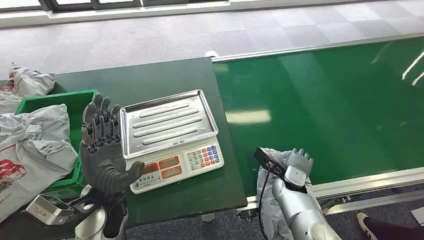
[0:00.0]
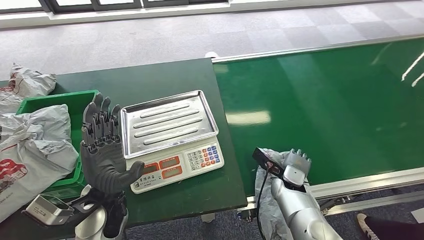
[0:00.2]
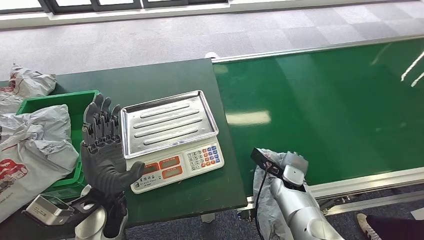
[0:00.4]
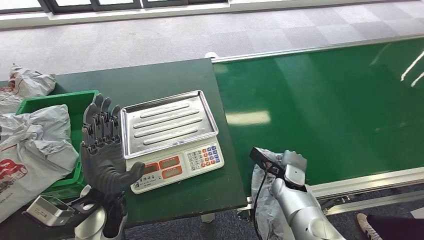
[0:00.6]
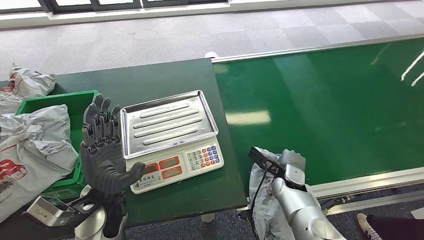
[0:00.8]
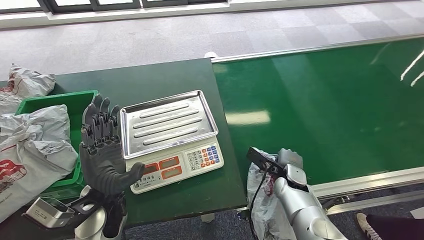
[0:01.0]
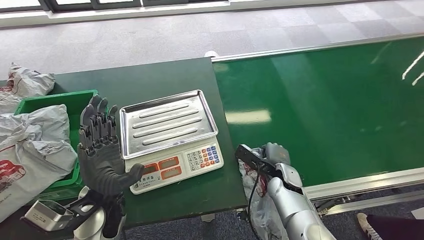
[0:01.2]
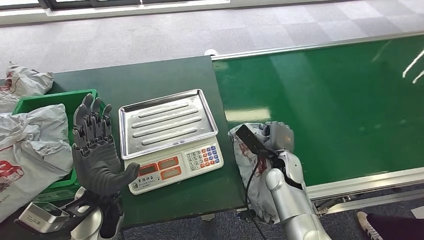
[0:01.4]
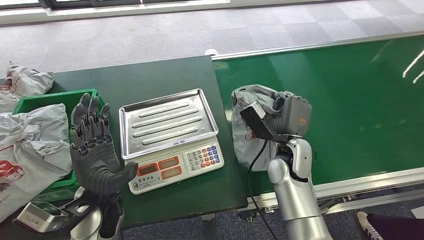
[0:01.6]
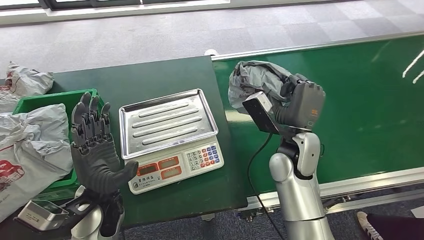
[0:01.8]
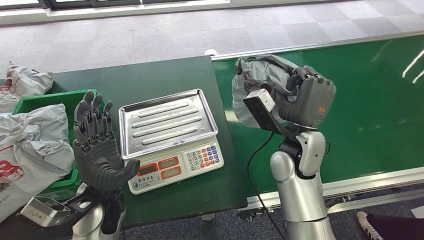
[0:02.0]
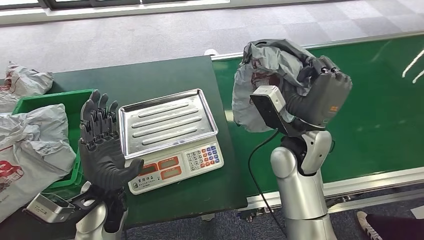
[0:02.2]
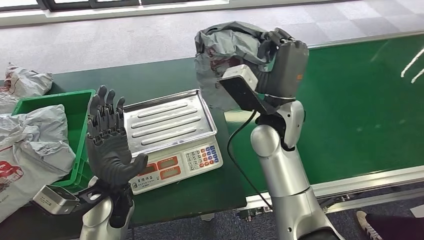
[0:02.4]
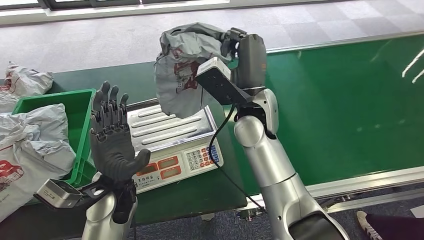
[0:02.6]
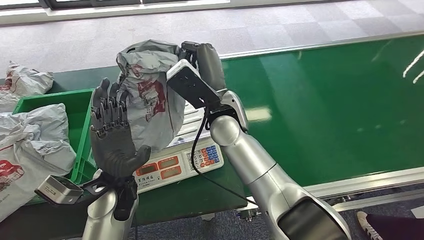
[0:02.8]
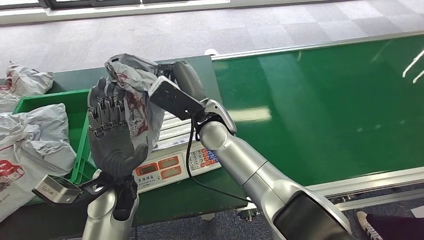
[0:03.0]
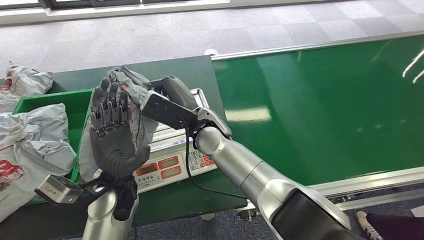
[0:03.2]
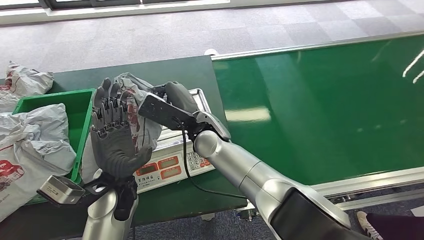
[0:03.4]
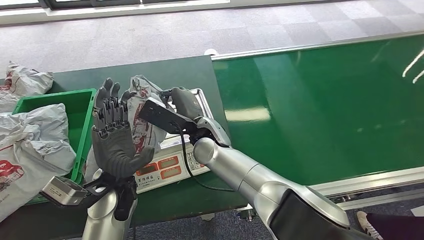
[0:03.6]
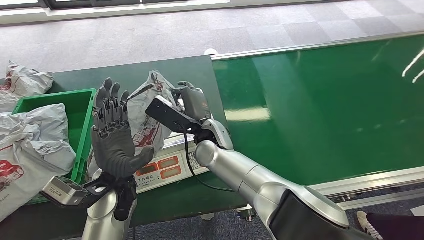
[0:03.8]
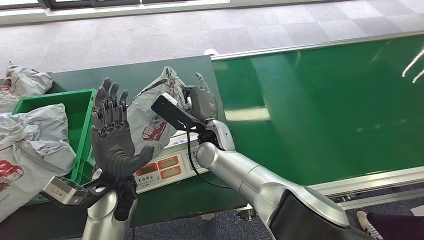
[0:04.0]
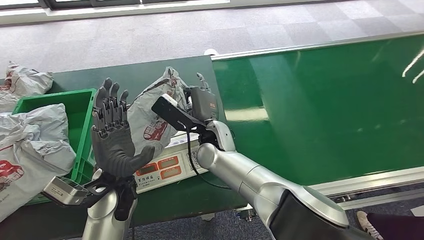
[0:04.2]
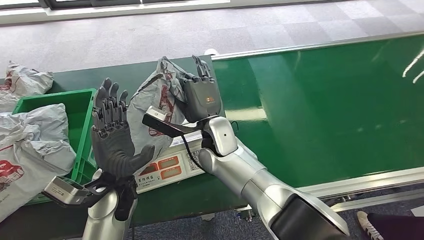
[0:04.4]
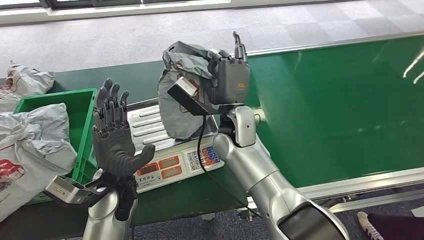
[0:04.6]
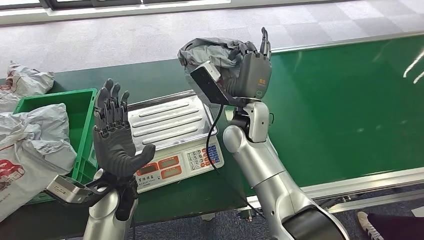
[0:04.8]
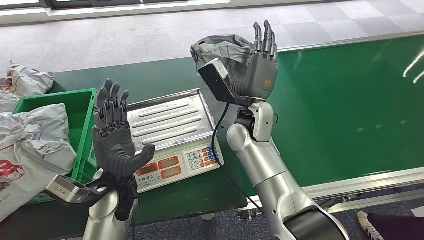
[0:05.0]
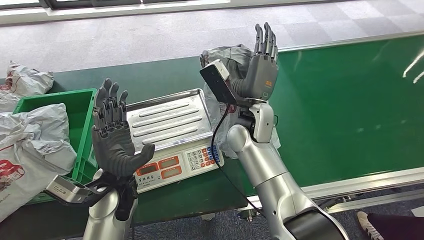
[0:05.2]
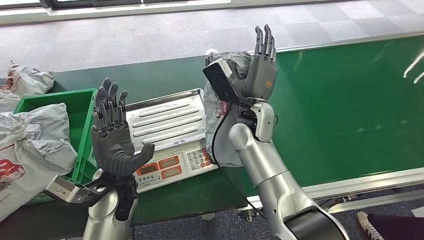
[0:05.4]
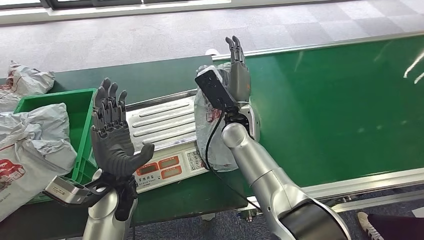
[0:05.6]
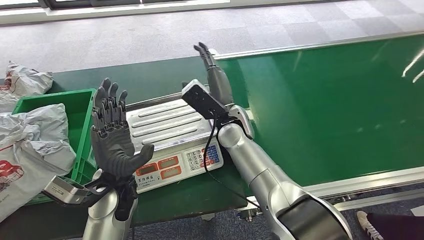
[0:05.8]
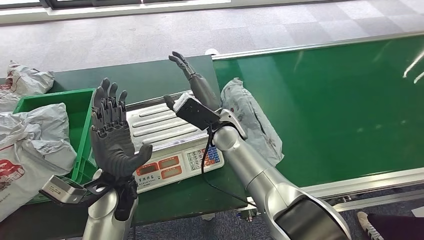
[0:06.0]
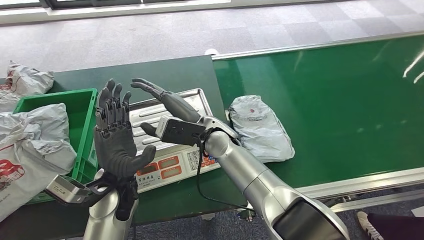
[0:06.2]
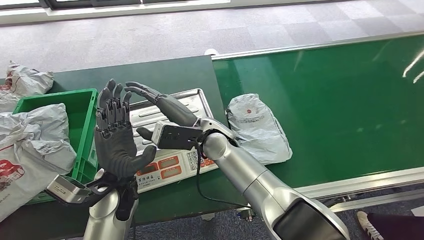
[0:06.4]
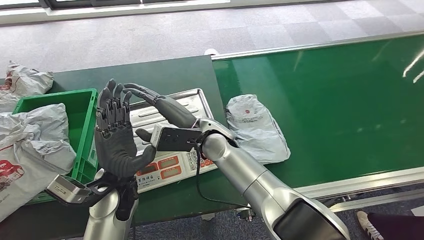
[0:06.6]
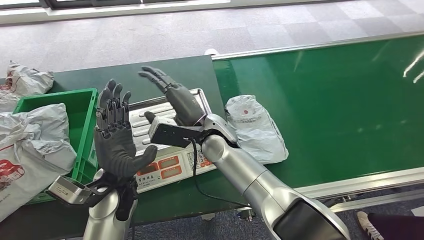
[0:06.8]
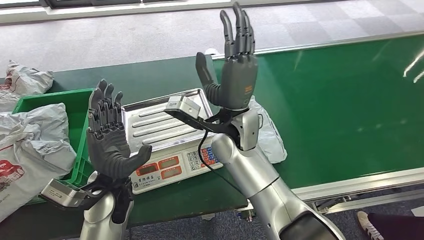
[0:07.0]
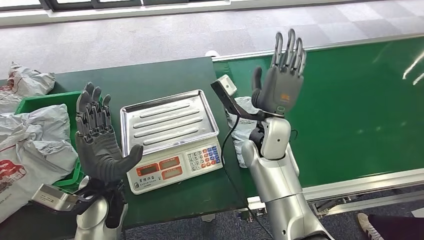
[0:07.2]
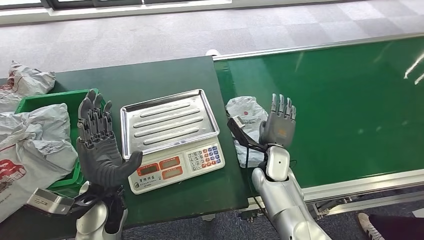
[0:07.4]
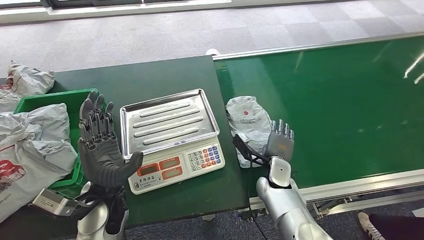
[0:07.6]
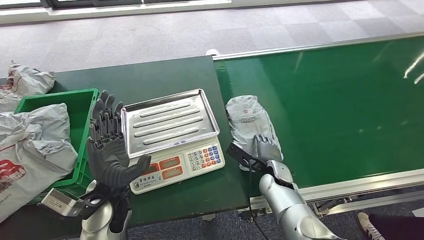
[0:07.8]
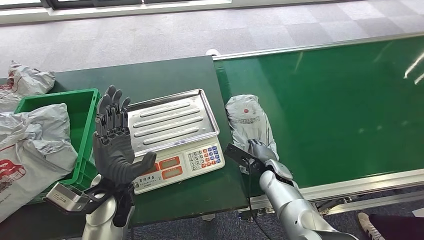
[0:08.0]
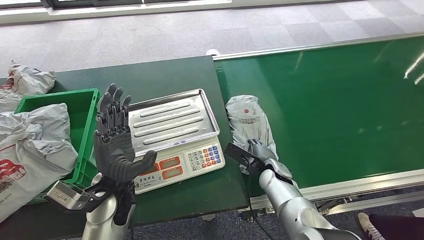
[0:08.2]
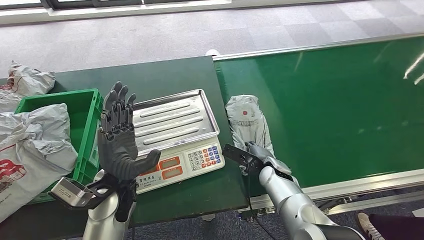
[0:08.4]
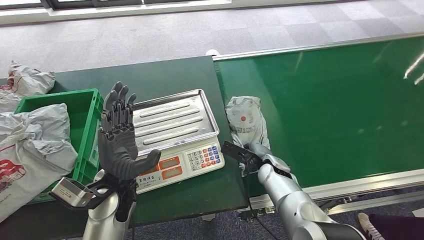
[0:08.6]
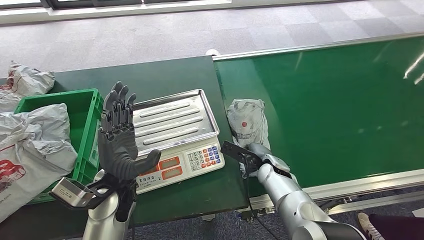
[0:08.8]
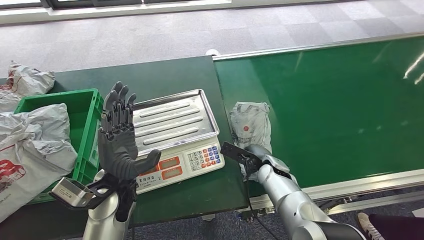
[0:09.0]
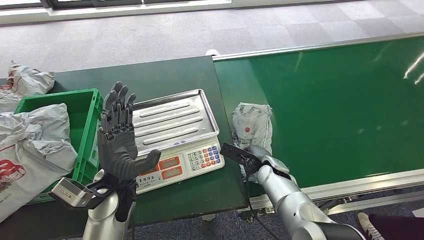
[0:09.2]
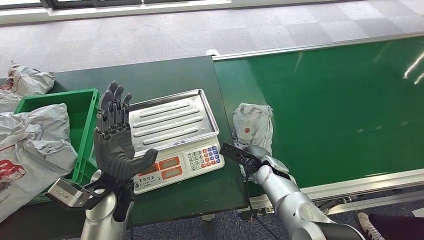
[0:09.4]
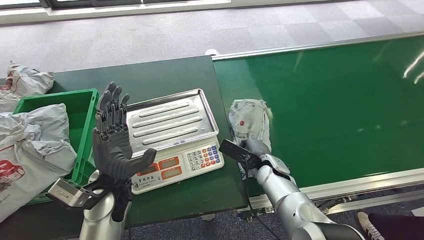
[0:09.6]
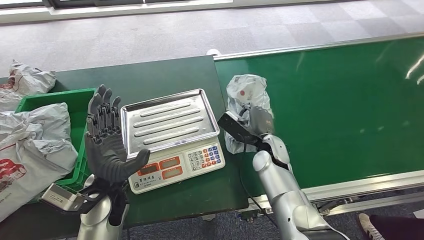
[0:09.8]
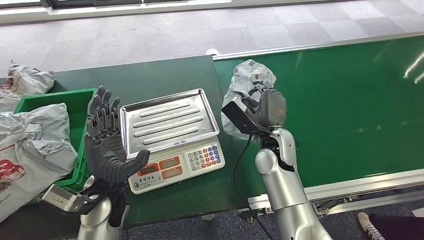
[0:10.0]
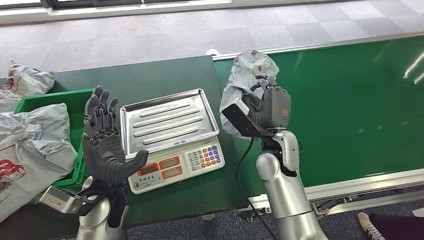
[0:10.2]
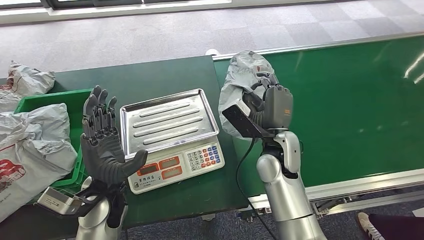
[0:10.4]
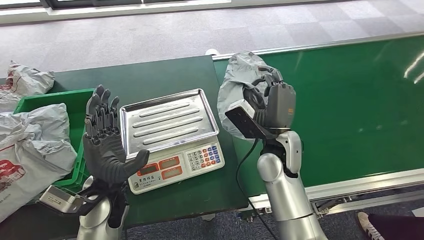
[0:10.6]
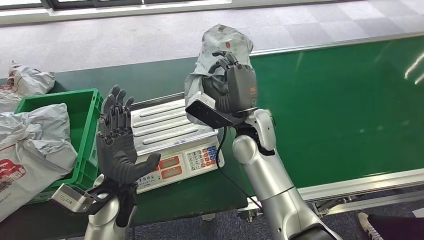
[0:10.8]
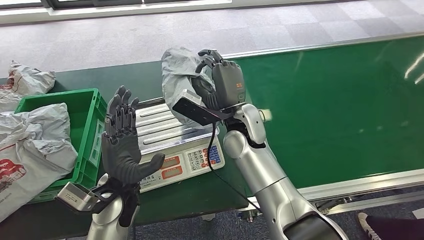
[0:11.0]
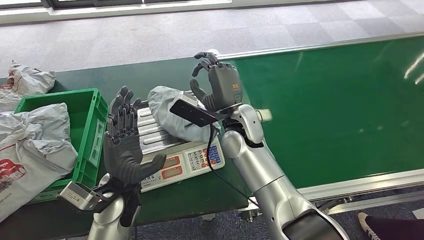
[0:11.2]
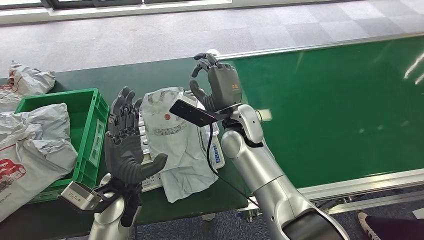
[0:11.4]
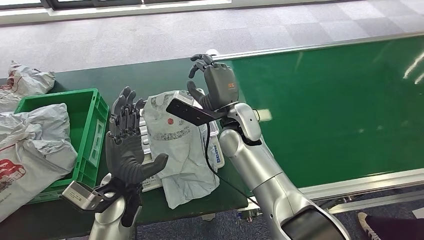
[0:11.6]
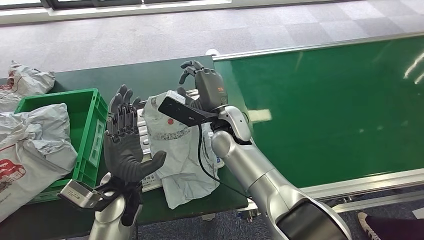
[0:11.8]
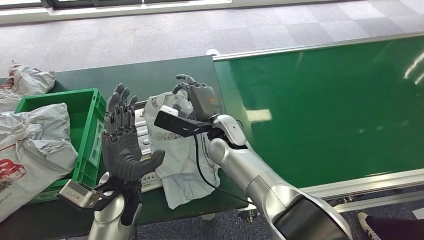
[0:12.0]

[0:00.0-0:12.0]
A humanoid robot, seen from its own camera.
Task of the whole recording: Weigh the package on the weighing device and place it in the left basket.
Step, 0:00.0 to 0:02.4: Pick up the package from the conveyor belt.
0:03.0 to 0:04.4: The right hand is displaced downward by some 5 cm.
0:04.4 to 0:06.0: The right hand moves approximately 10 cm to the right and comes back.
0:06.0 to 0:07.6: The right hand moves downward and to the right, roughly 20 cm.
0:09.0 to 0:10.4: The right hand heads upward, covering approximately 15 cm.

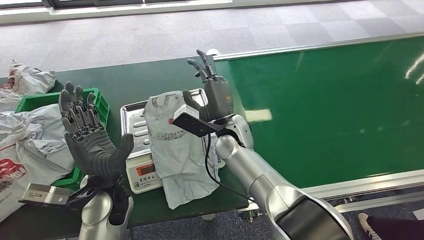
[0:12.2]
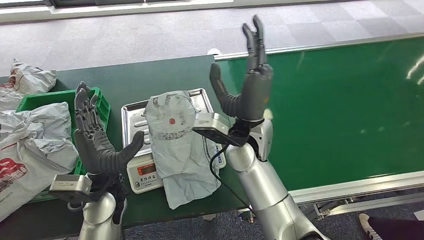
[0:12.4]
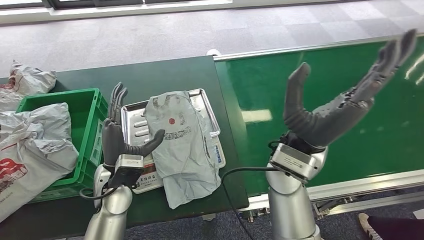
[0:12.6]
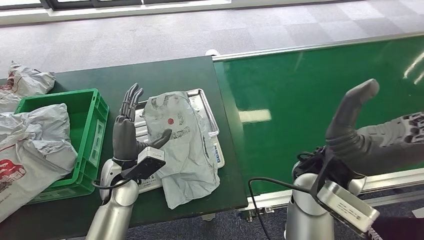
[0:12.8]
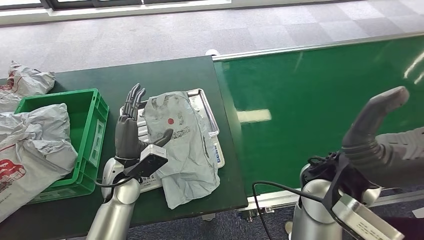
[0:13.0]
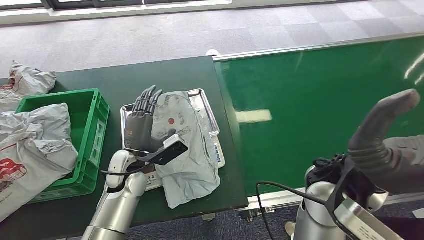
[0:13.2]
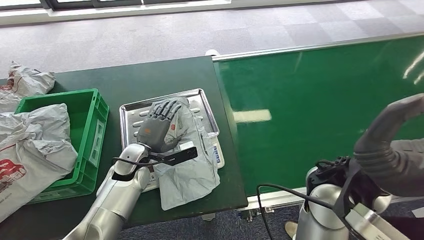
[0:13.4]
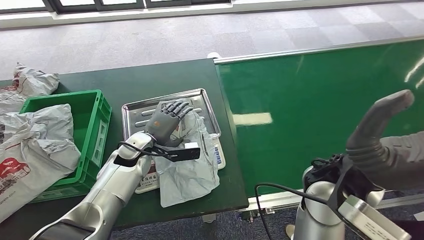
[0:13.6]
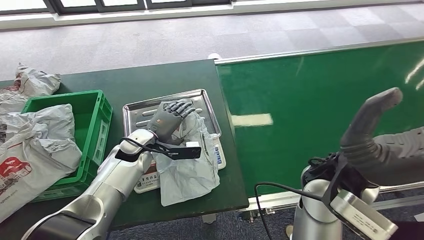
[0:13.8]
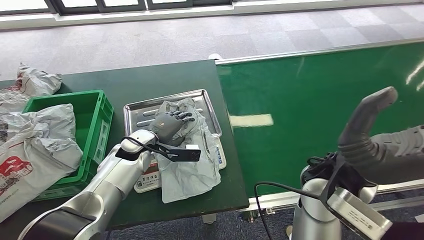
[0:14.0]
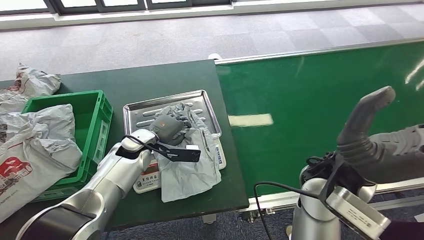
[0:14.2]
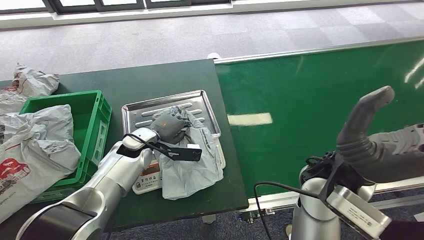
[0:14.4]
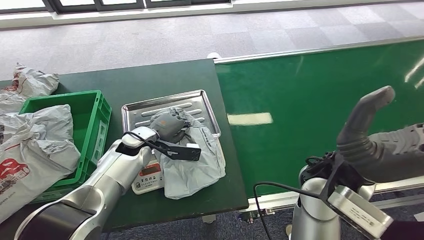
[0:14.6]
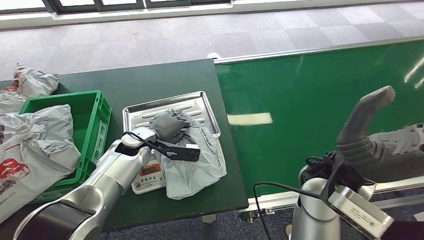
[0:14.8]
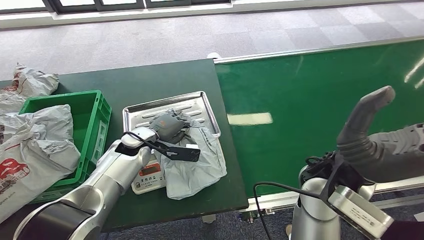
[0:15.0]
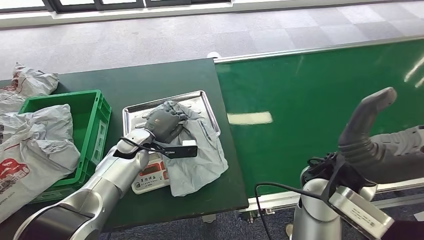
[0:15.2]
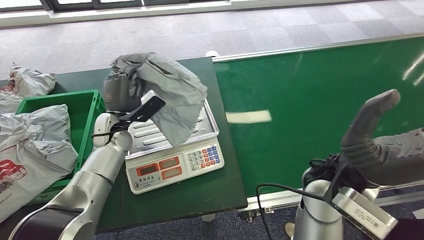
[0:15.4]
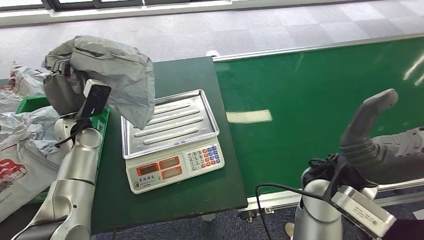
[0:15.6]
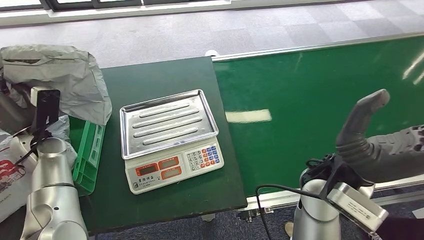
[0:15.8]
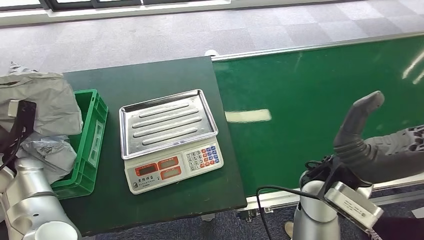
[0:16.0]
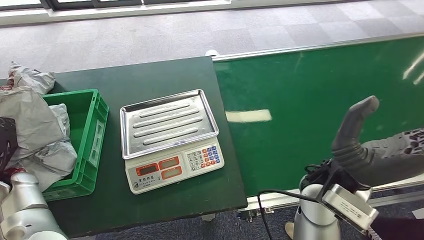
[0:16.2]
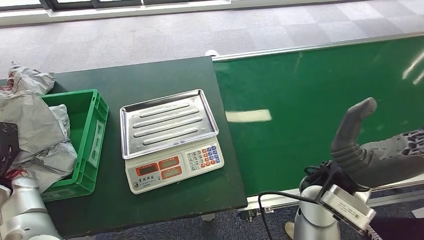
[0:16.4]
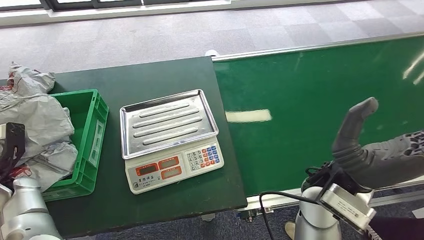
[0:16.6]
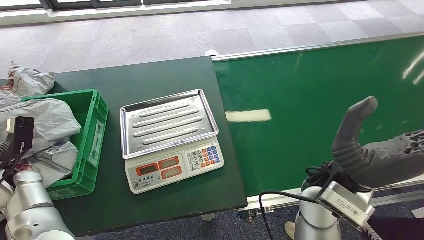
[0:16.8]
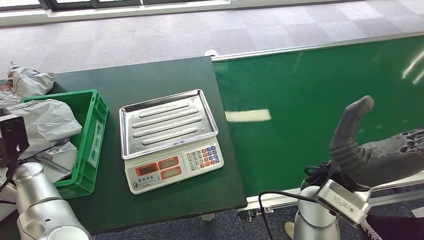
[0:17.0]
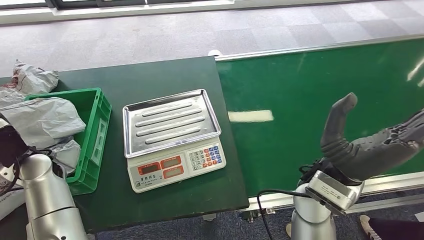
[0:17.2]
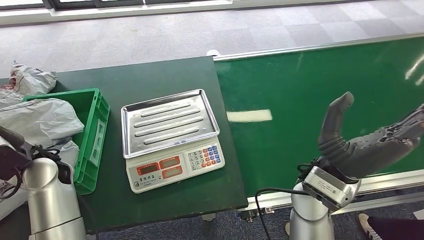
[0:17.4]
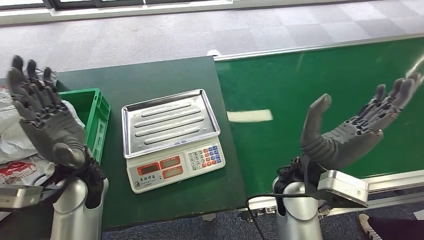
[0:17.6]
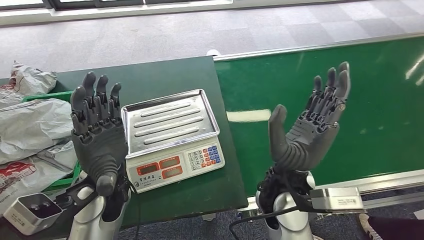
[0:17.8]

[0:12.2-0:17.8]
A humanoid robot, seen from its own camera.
Task of the whole recording: Weigh the package on the weighing device and place it in the left basket.
Step, 0:13.8 to 0:15.4: Pick up the package from the inbound machine.
Step, 0:15.8 to 0:17.8: Place the package into the parcel locker.
0:13.6 to 0:15.0: The hands move only a little.
